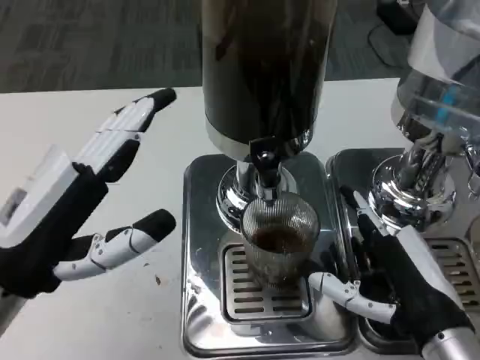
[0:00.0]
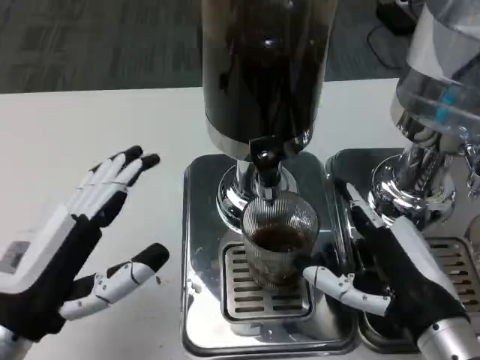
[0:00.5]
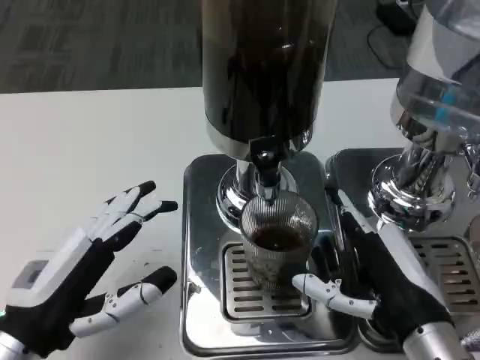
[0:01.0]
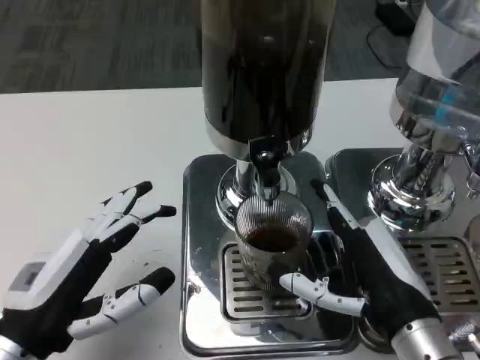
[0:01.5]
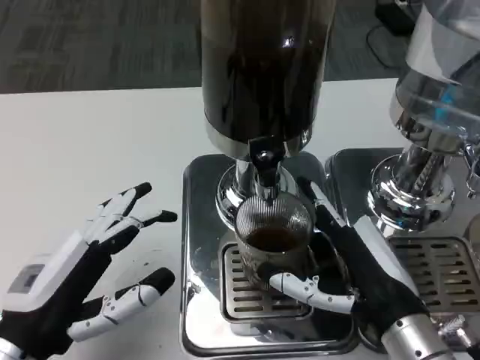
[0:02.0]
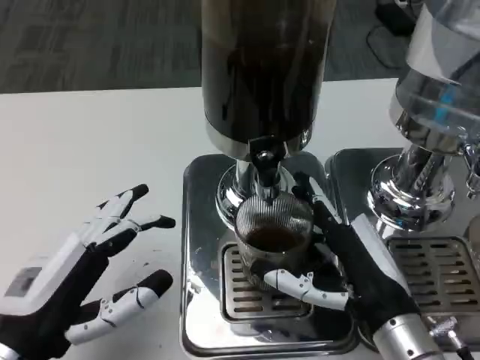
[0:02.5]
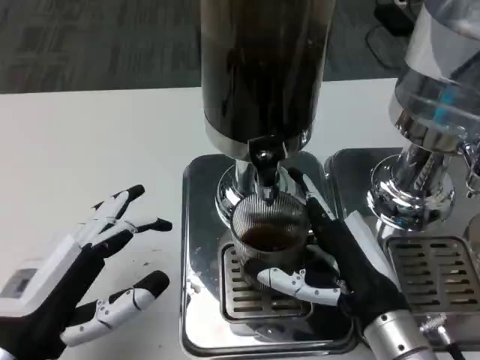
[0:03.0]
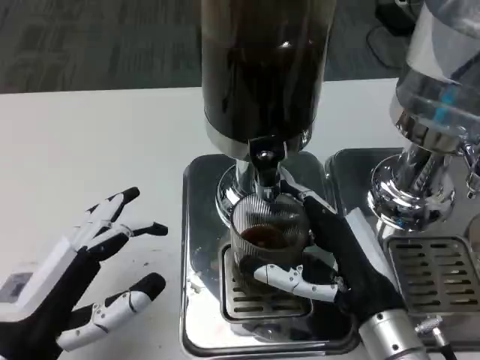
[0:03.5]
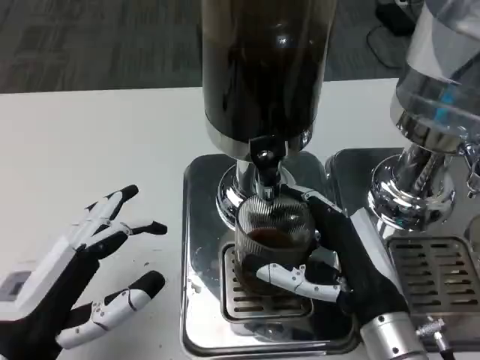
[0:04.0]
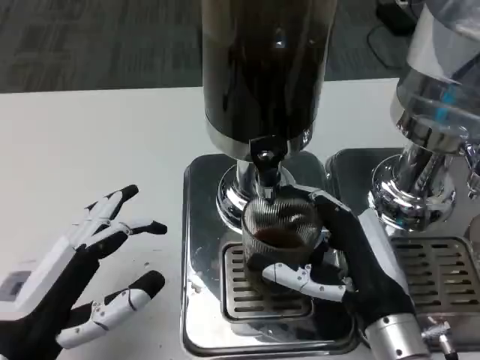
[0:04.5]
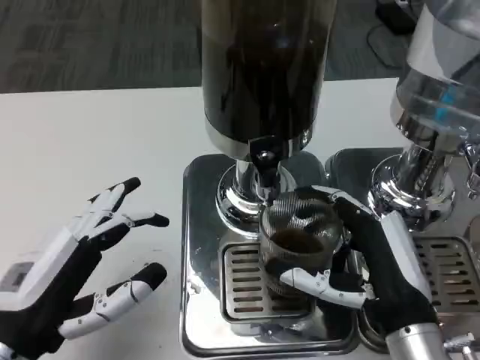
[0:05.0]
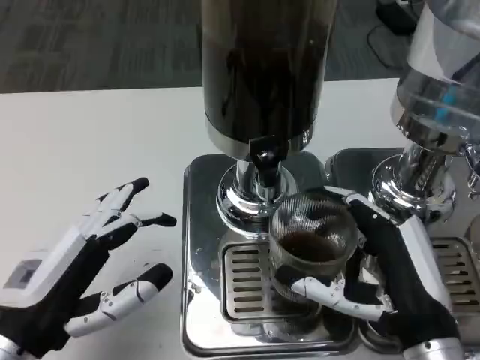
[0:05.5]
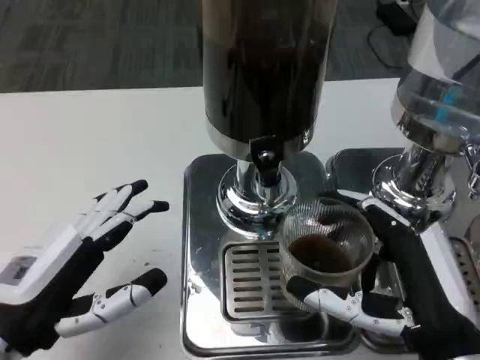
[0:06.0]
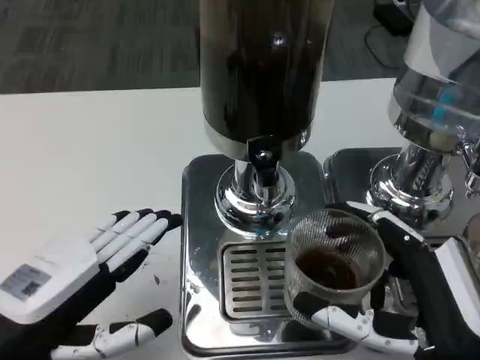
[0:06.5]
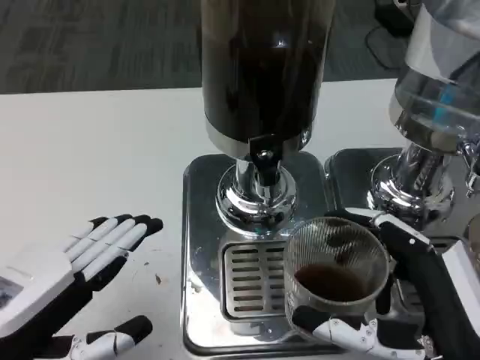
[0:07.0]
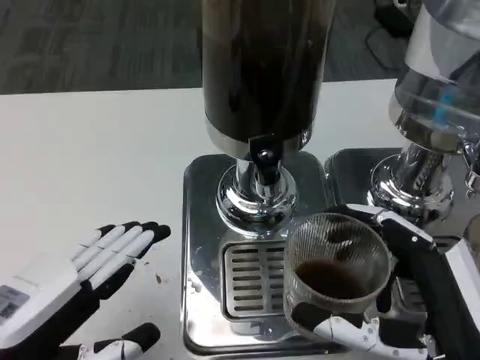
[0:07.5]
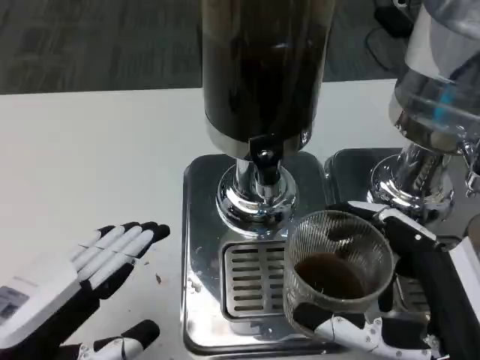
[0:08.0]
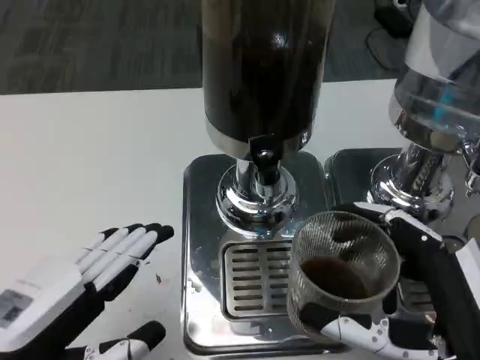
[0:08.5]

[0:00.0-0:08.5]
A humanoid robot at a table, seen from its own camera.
Task of the whole recording: Grasp the cup under the faucet to collect the drink, then remove the cup.
0:00.0 to 0:02.0: The left hand travels downward by about 5 cm.
0:02.0 to 0:04.0: There are only small adjustments of the hands.
0:04.0 to 0:06.5: The right hand travels backward by approximately 5 cm.
0:06.5 to 0:08.5: There are only small adjustments of the hands.

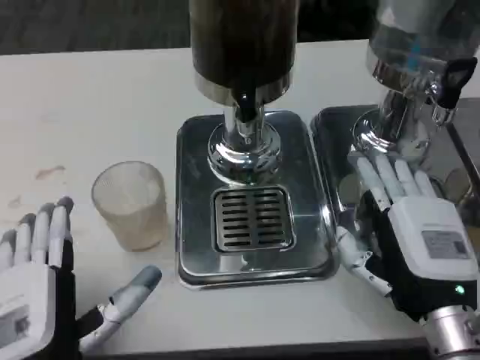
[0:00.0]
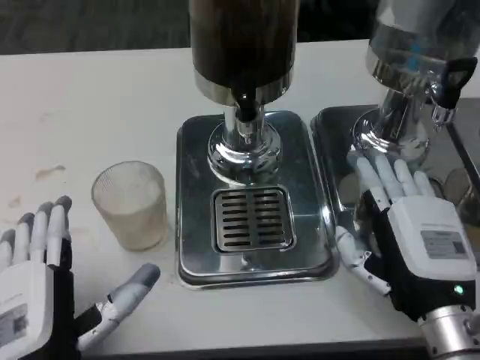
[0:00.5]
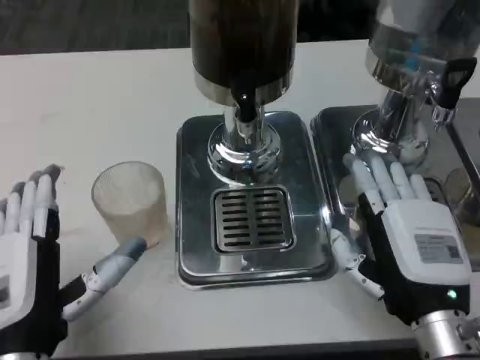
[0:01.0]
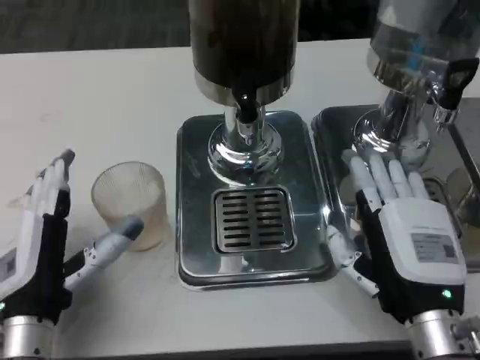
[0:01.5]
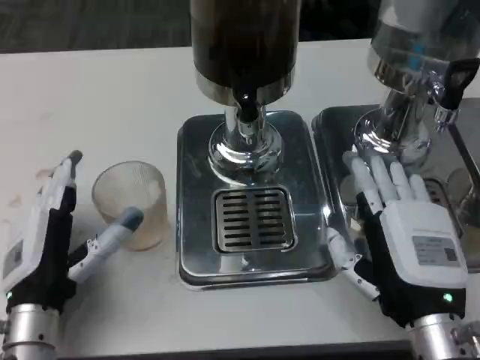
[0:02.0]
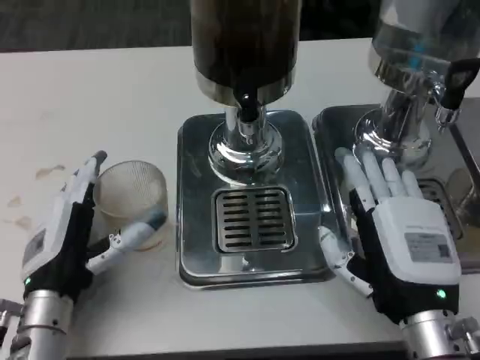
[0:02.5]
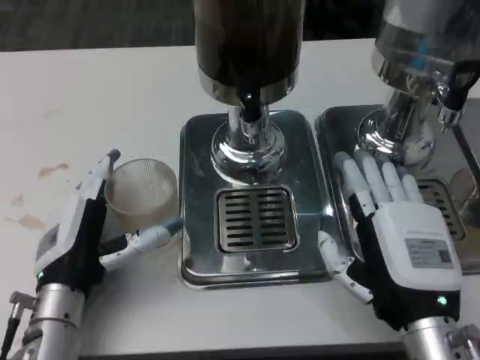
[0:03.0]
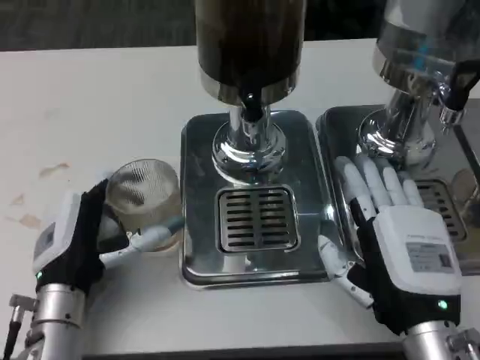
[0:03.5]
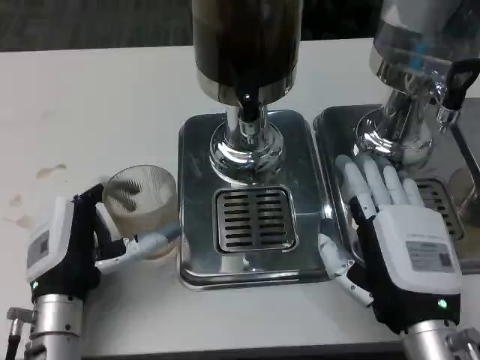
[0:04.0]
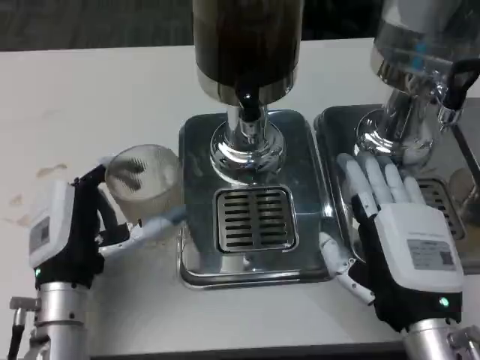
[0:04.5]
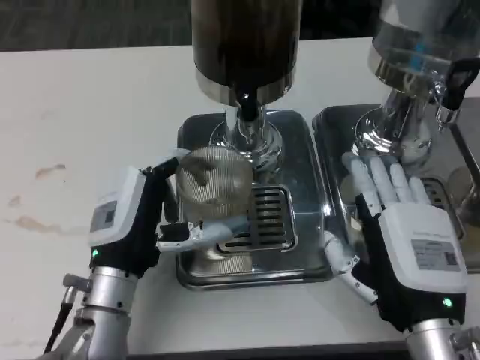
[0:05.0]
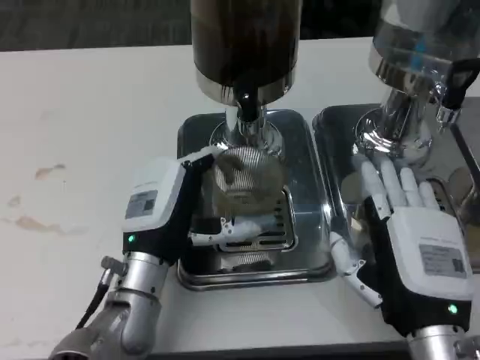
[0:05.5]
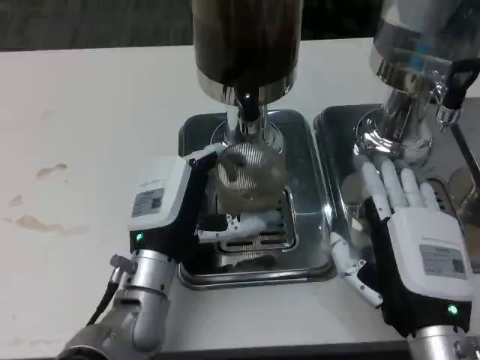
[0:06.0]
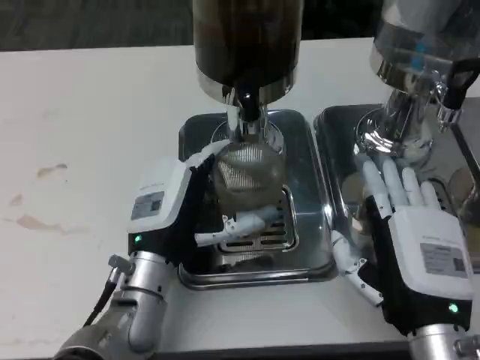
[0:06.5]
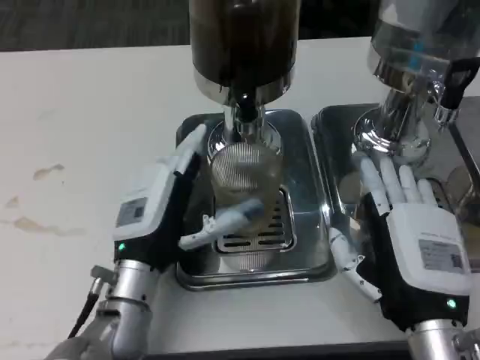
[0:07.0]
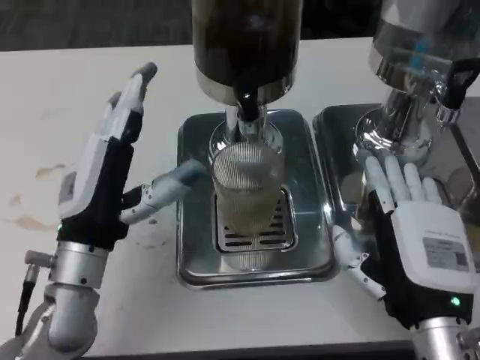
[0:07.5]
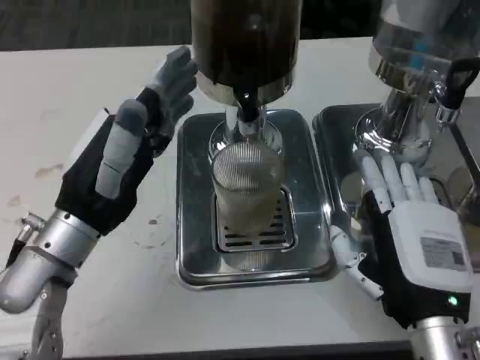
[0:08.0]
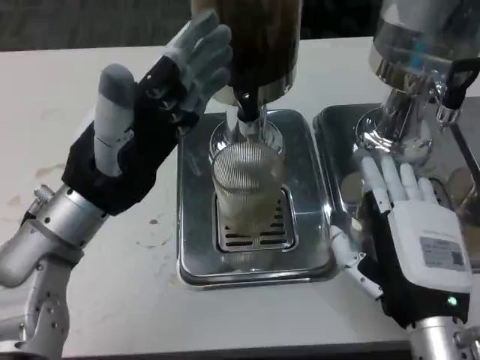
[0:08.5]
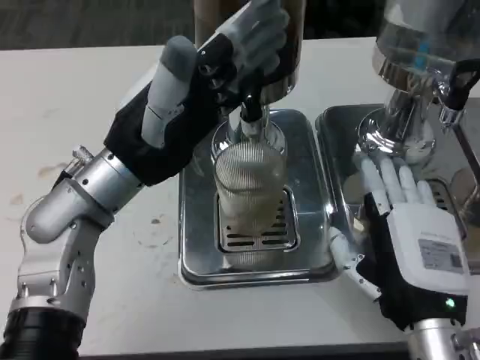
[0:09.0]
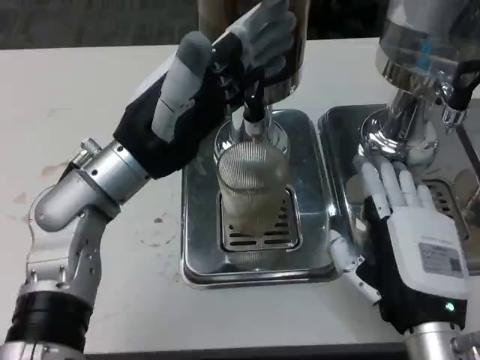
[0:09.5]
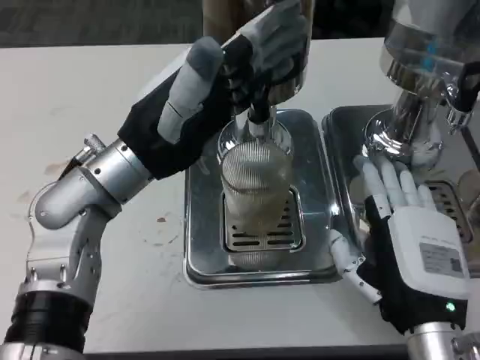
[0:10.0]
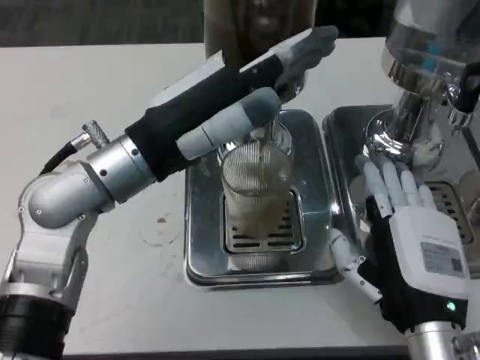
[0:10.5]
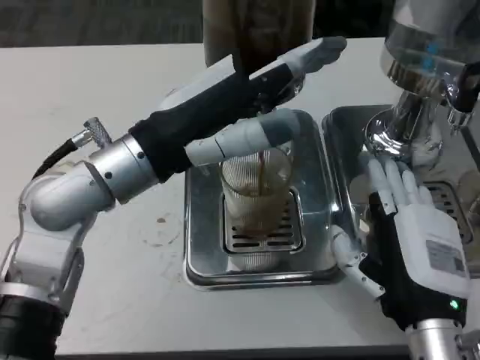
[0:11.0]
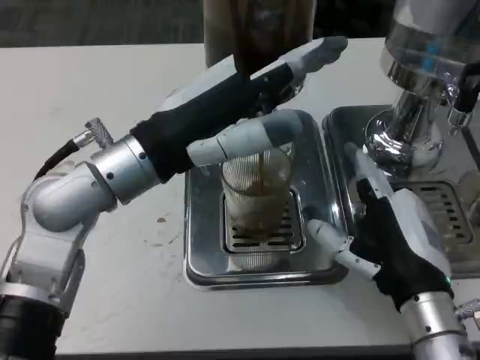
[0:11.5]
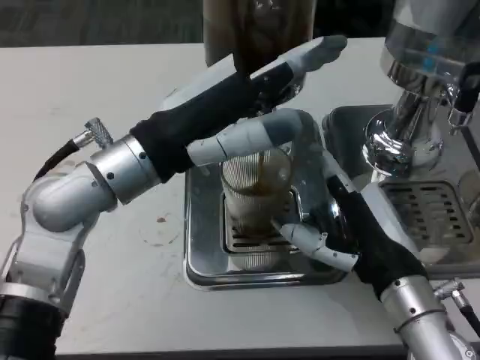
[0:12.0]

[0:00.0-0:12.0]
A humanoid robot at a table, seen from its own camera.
Task of the whole recording: Grasp the cup under the faucet to collect the drink, then remove the cup.
0:00.0 to 0:02.0: The left hand moves forward, some 10 cm.
0:04.0 to 0:06.0: The left hand shifts about 10 cm to the right.
0:06.0 to 0:08.0: The left hand shifts approximately 10 cm to the left and upward.
0:08.0 to 0:10.0: The left hand is displaced upward by some 5 cm.

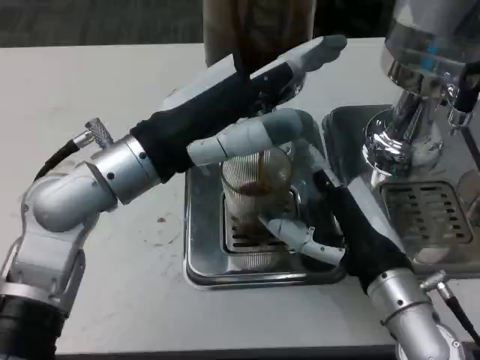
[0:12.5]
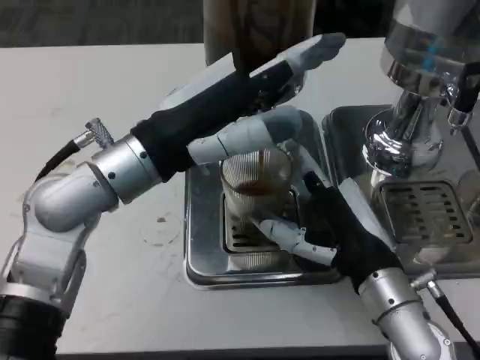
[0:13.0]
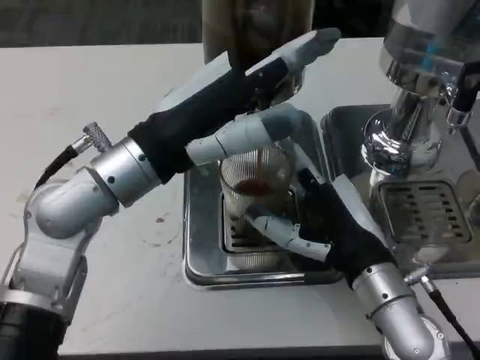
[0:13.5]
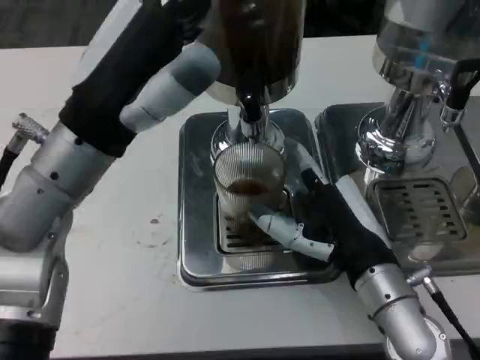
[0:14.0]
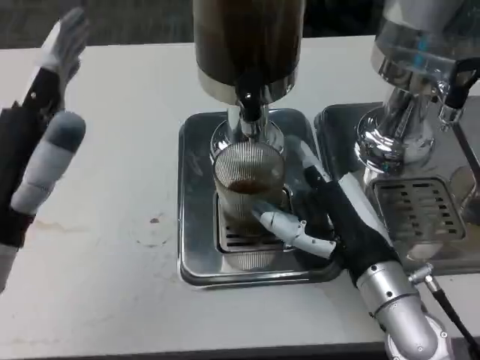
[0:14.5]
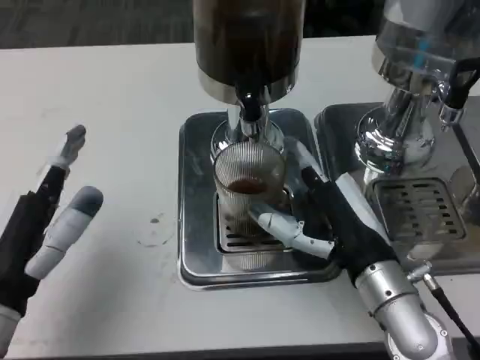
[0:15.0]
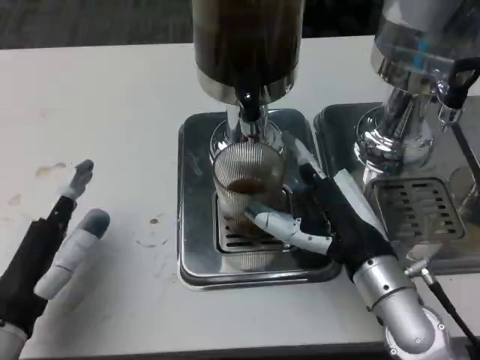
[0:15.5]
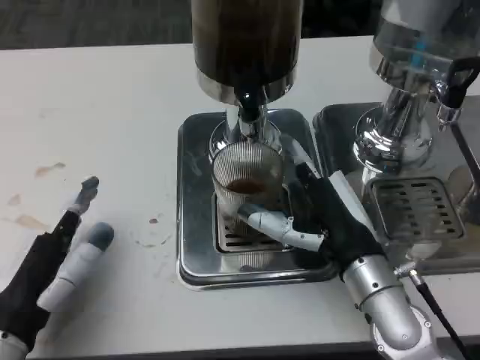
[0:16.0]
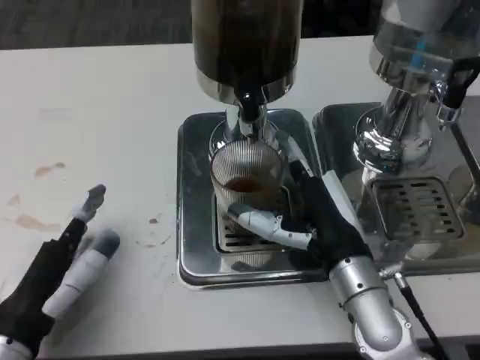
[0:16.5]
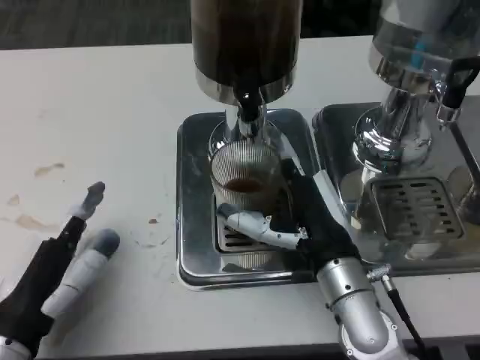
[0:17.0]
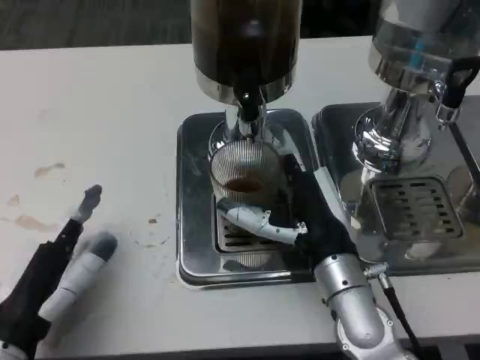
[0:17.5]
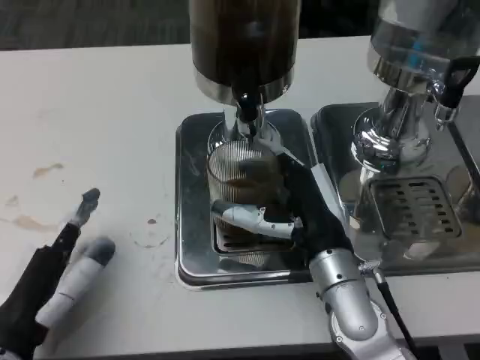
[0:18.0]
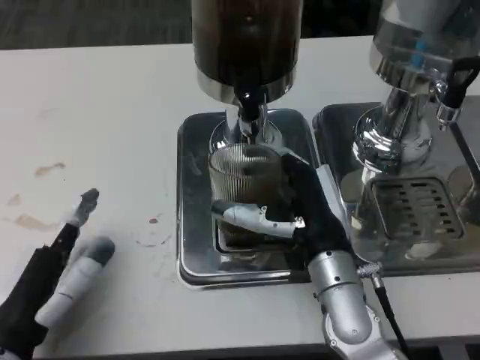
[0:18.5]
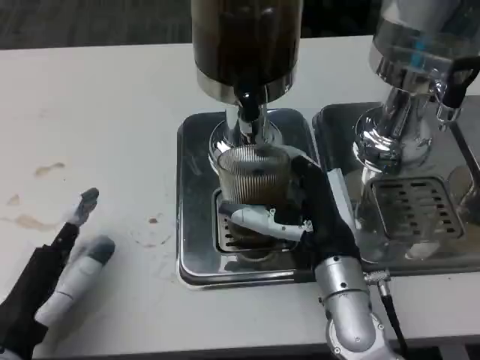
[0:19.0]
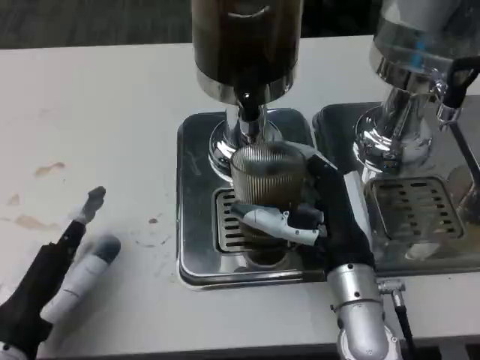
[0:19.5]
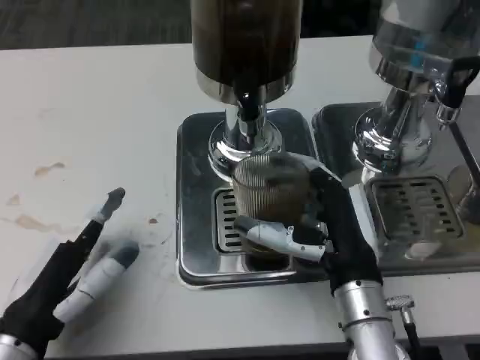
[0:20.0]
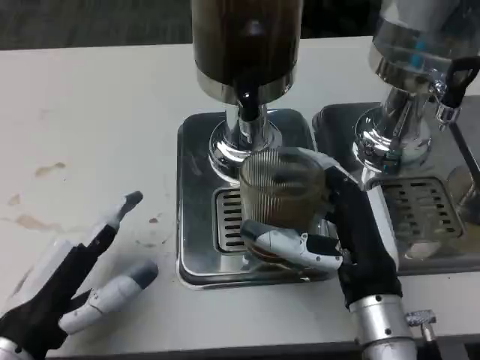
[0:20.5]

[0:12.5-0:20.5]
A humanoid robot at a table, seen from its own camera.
Task of the whole recording: Grasp the cup under the faucet to collect the drink, then remove the cup.
0:12.5 to 0:14.5: The left hand goes about 15 cm to the left, backward and downward.
0:14.5 to 0:16.5: The left hand goes some 10 cm downward.
0:16.5 to 0:18.5: The hands make only small movements.
0:18.5 to 0:20.5: The right hand goes roughly 5 cm backward.
